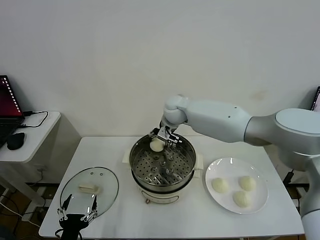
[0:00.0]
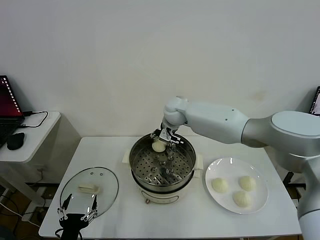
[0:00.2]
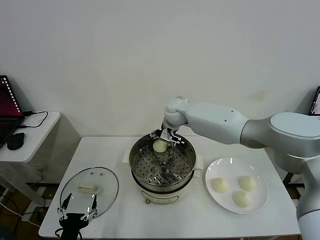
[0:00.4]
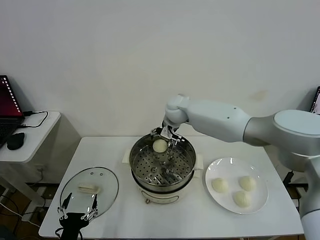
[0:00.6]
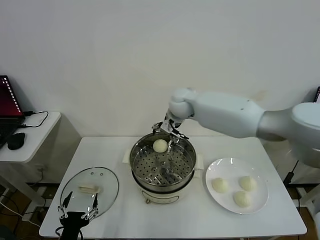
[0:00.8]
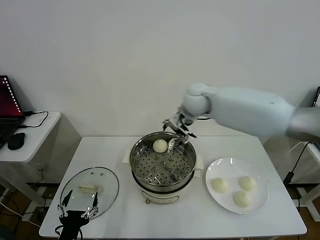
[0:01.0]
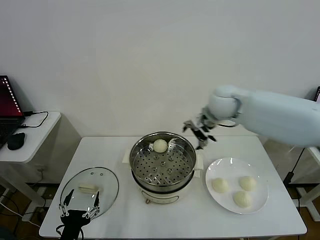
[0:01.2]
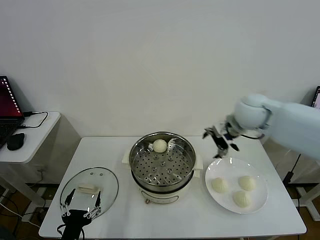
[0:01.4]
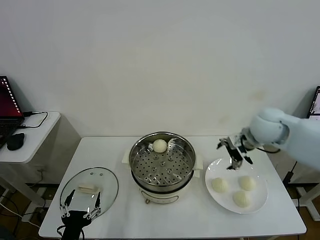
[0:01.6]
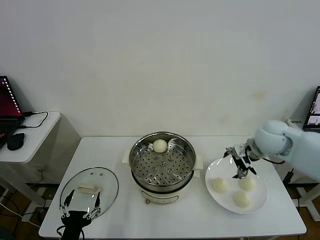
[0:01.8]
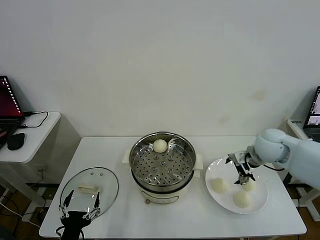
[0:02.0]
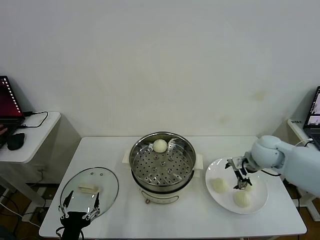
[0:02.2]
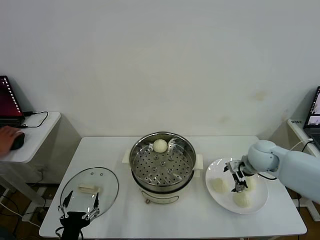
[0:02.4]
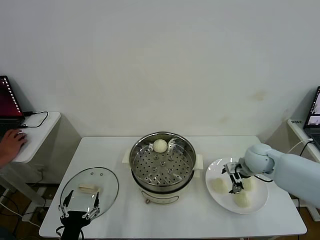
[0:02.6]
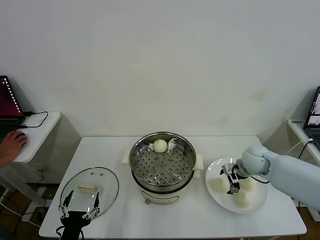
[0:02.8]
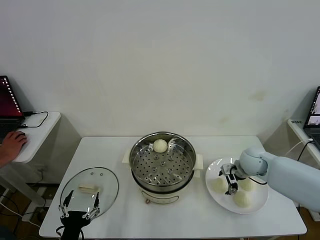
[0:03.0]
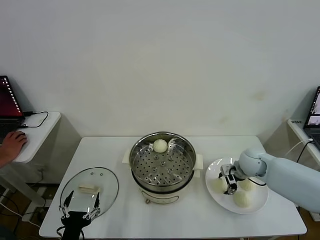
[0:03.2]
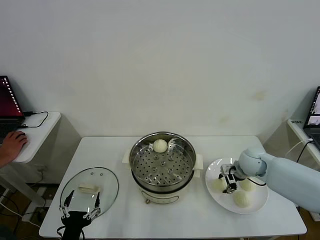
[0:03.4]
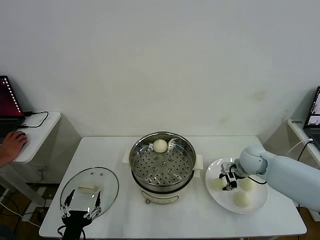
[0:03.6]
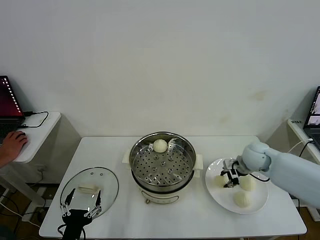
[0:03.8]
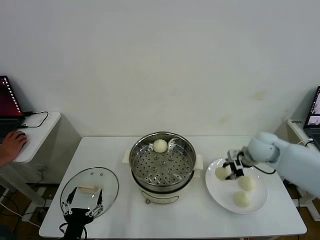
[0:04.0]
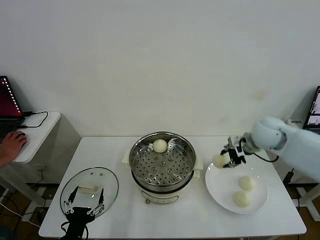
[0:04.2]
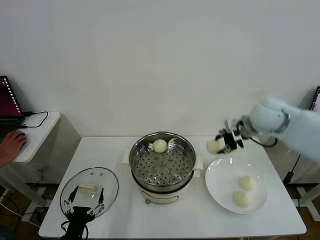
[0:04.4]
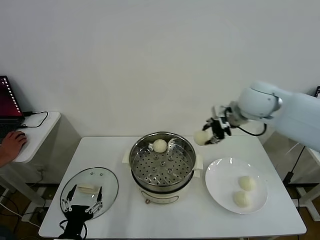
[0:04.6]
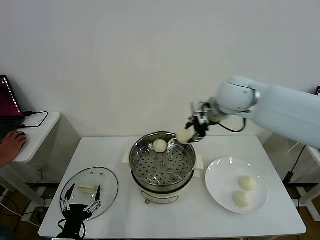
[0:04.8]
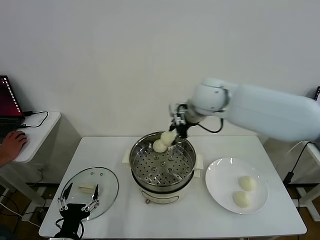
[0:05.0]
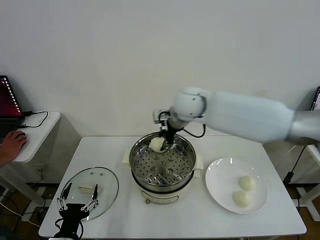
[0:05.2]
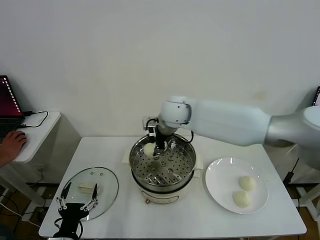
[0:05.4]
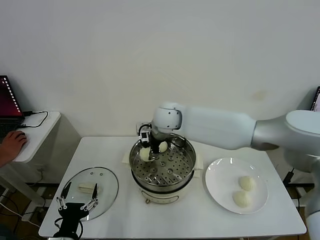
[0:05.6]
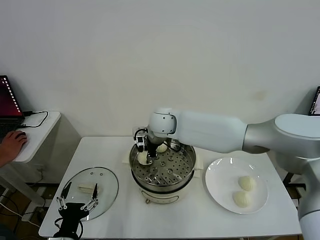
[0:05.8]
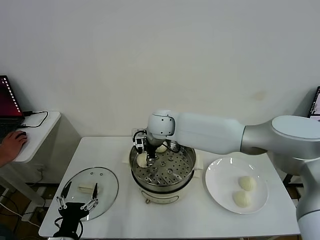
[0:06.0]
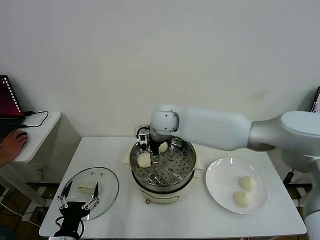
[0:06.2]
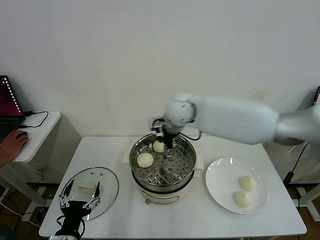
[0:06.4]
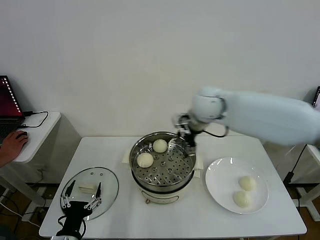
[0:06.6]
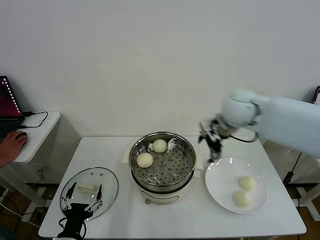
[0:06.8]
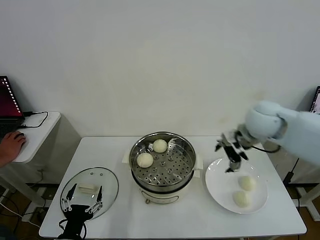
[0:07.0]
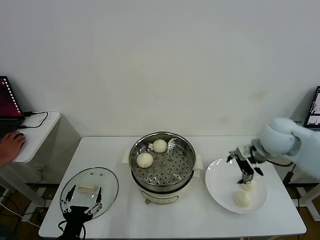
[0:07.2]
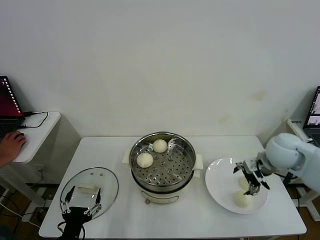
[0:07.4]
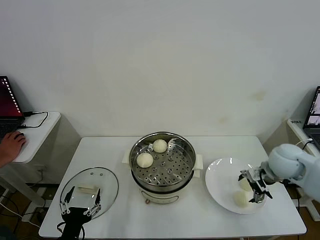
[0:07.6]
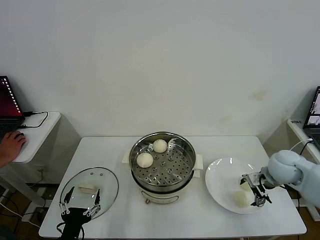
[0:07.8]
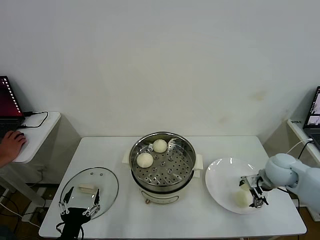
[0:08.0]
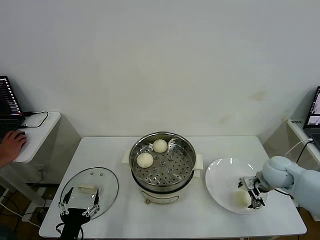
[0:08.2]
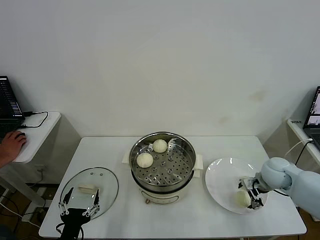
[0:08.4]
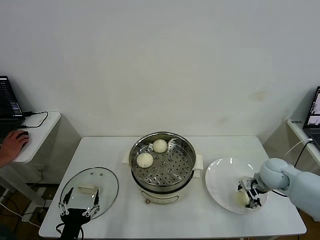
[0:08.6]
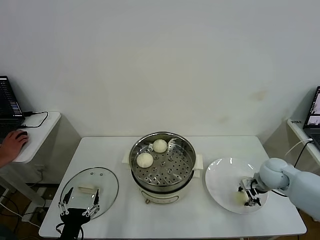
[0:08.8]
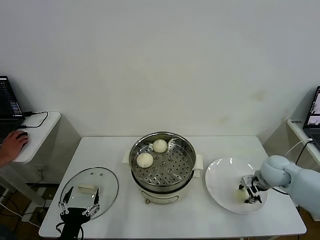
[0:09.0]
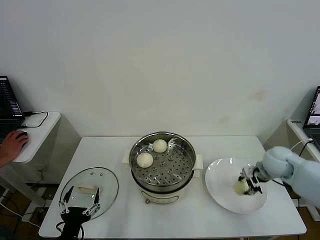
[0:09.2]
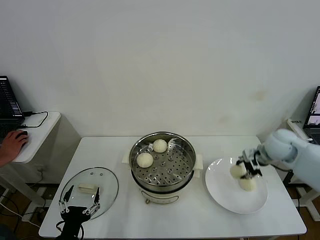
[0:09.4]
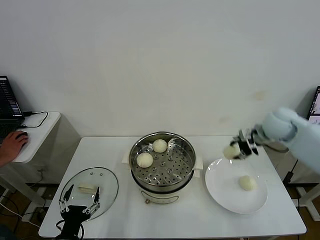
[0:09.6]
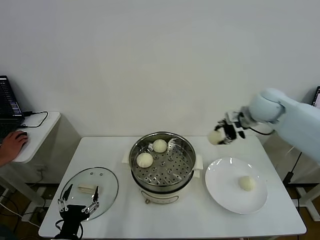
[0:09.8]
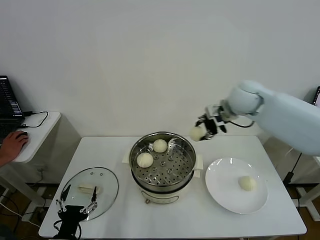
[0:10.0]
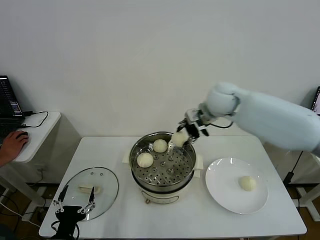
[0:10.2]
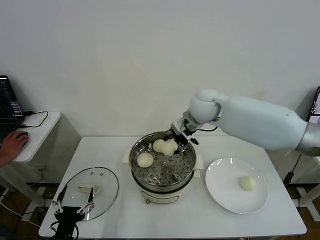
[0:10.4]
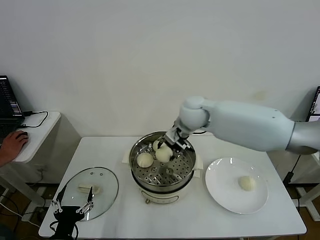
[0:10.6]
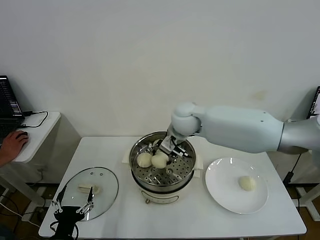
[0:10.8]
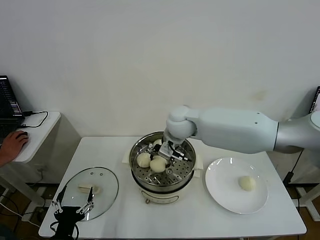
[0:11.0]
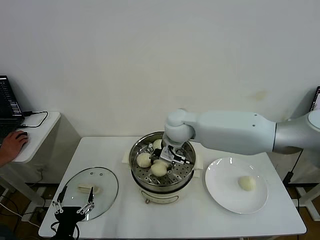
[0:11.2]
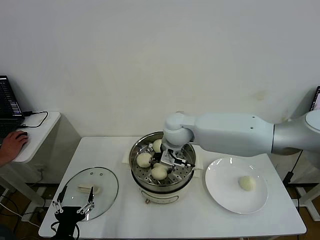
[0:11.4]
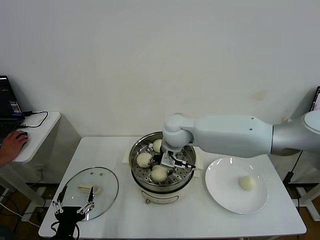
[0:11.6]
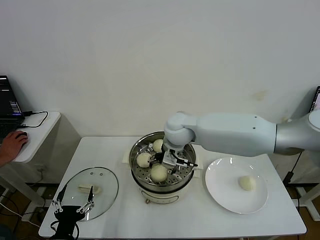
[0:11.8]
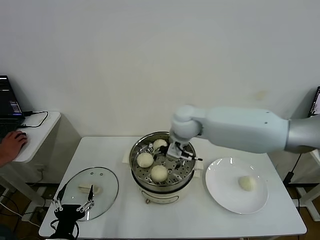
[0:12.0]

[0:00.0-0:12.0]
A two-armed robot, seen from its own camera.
Task of the whole recording: take steamed baozi put them in steamer then cover it.
Step, 0.8 to 3.4 s: Grasp the baozi in the plate with right gripper.
Step, 3.6 to 6.4 s: Place the baozi on the steamer with right gripper.
Step, 6.6 to 8.8 s: Grasp the baozi in the plate with right gripper.
Step, 9.0 to 11.8 s: Place the baozi on the steamer with right gripper.
0.0 to 1.6 s: The right gripper is displaced to the right and backward by roughly 30 cm, and opens up.
1.6 to 3.0 s: The right gripper goes about 15 cm downward.
3.0 to 4.4 s: The right gripper goes about 20 cm upward, and closes.
4.4 to 6.0 s: The right gripper is displaced to the left by about 30 cm, and opens.
6.0 to 7.6 s: The right gripper goes about 40 cm to the right.
7.6 to 9.0 s: The right gripper is displaced downward by roughly 5 cm, and closes up.
9.0 to 10.4 s: The right gripper moves to the left, upward and forward, roughly 35 cm.
10.4 to 12.0 s: The right gripper opens.

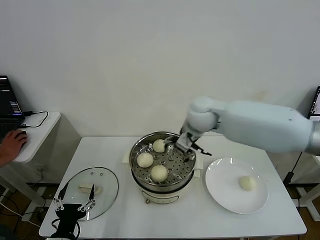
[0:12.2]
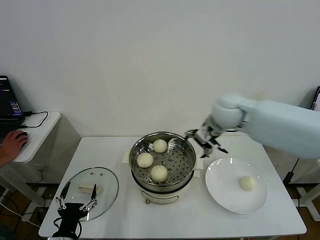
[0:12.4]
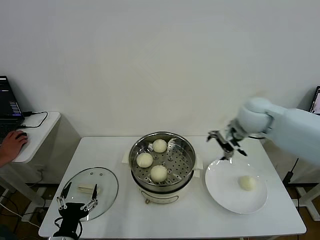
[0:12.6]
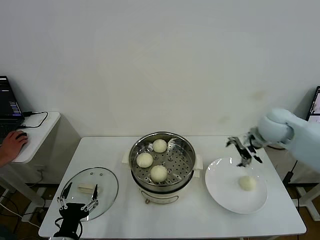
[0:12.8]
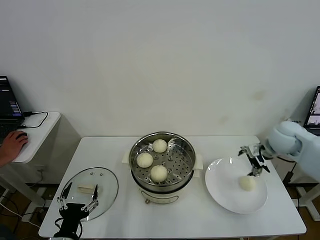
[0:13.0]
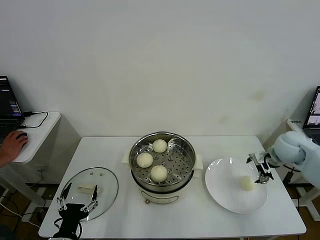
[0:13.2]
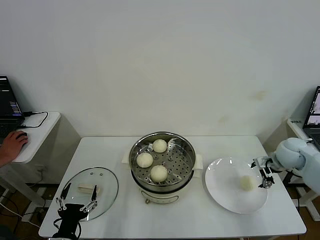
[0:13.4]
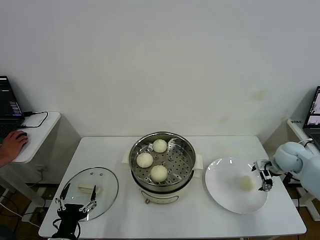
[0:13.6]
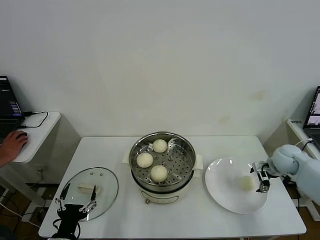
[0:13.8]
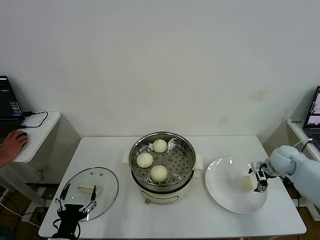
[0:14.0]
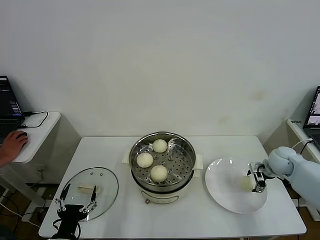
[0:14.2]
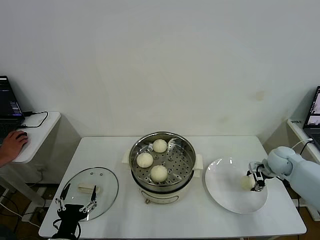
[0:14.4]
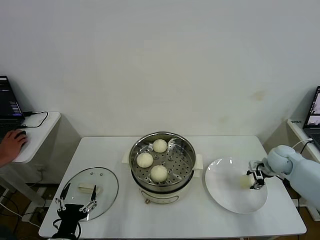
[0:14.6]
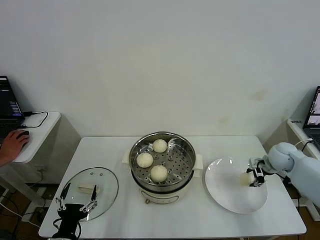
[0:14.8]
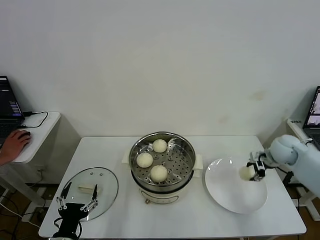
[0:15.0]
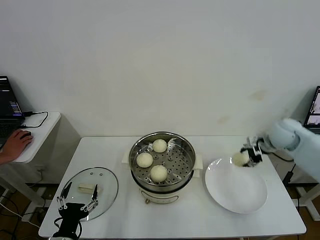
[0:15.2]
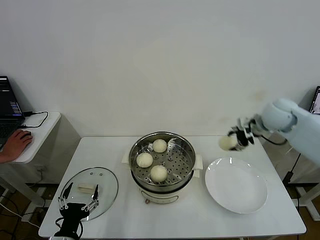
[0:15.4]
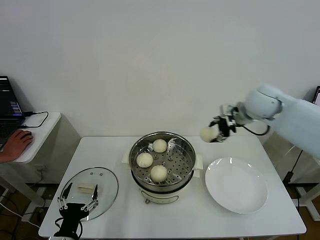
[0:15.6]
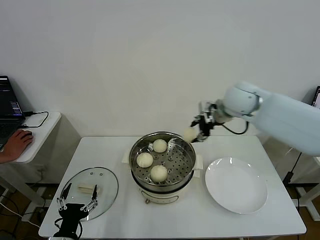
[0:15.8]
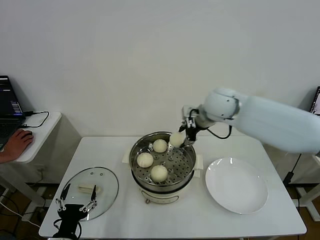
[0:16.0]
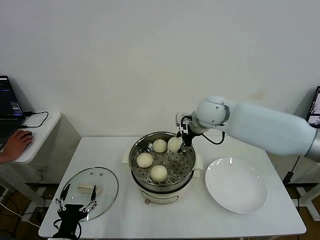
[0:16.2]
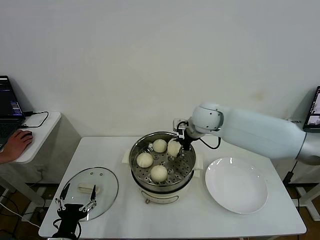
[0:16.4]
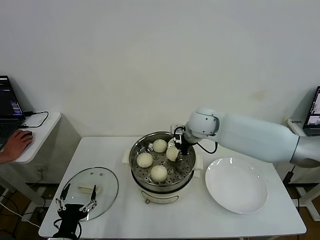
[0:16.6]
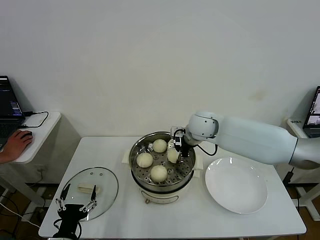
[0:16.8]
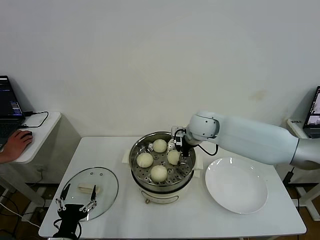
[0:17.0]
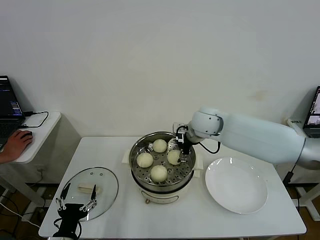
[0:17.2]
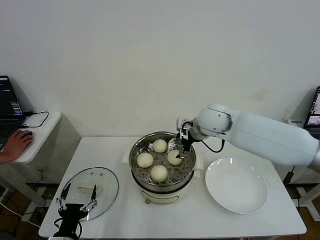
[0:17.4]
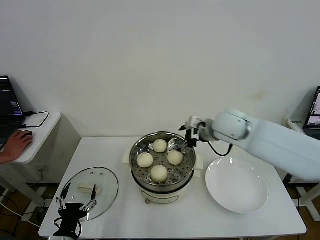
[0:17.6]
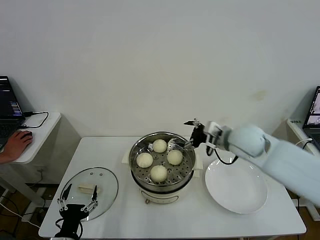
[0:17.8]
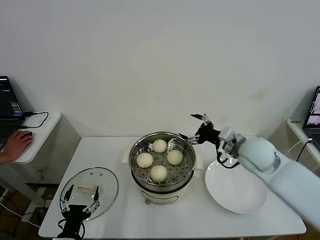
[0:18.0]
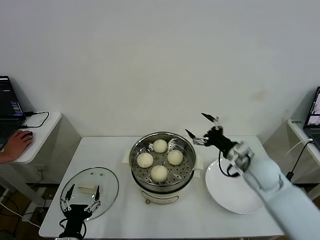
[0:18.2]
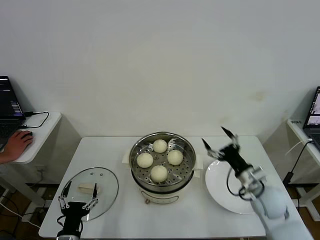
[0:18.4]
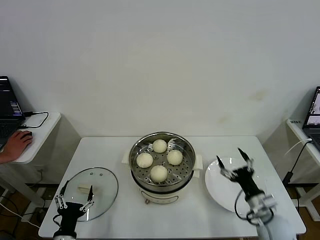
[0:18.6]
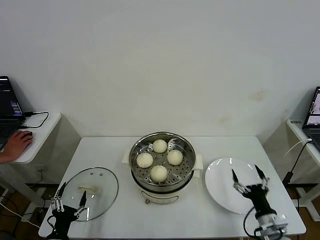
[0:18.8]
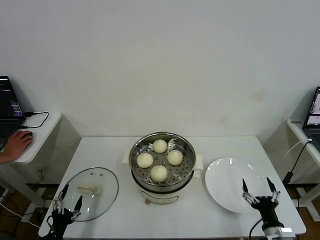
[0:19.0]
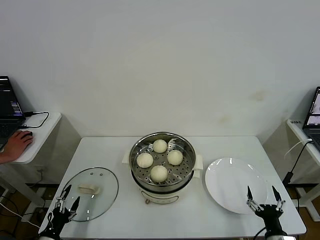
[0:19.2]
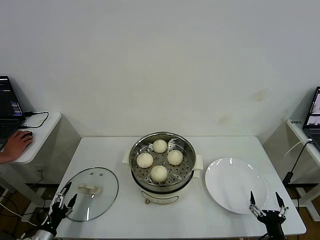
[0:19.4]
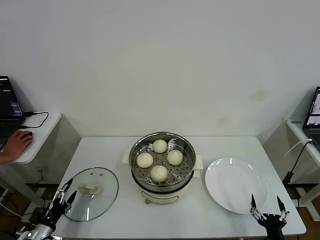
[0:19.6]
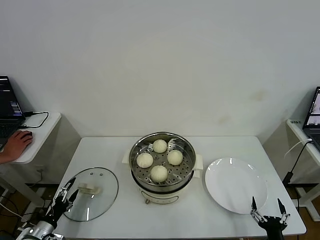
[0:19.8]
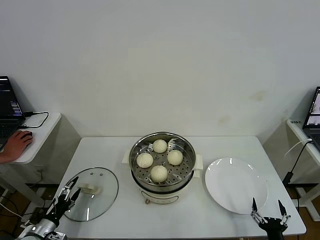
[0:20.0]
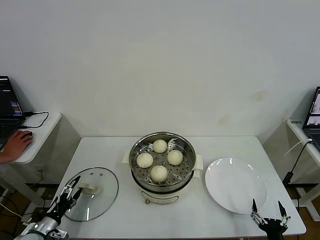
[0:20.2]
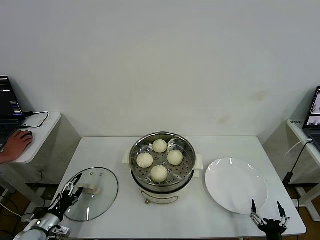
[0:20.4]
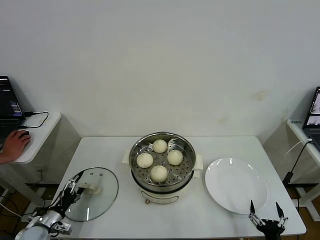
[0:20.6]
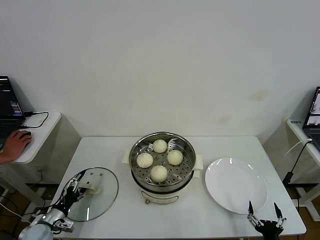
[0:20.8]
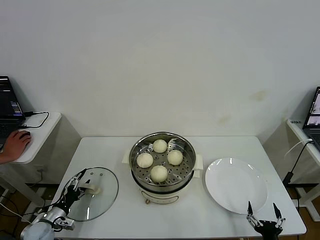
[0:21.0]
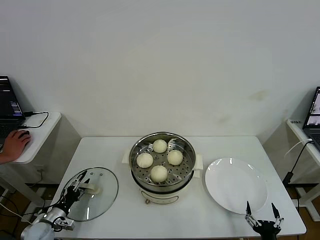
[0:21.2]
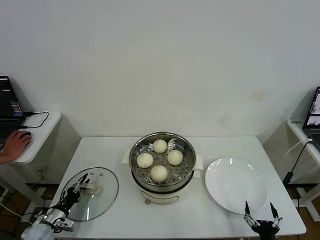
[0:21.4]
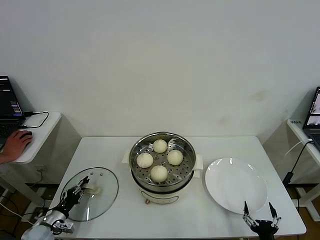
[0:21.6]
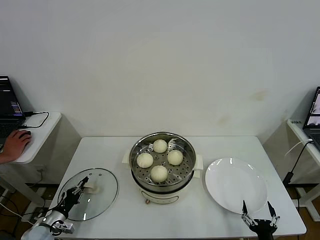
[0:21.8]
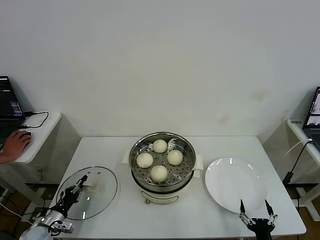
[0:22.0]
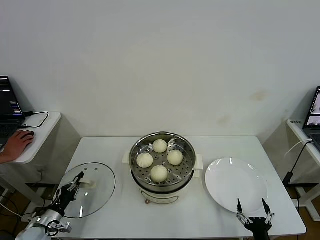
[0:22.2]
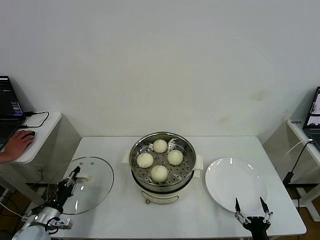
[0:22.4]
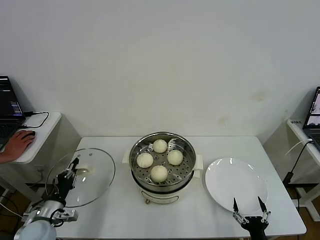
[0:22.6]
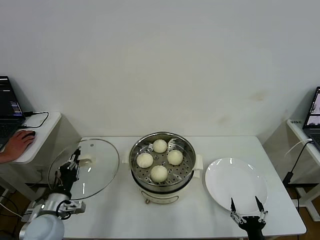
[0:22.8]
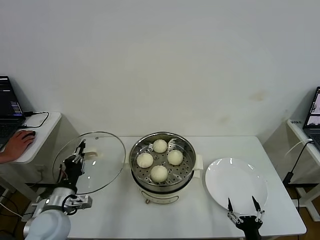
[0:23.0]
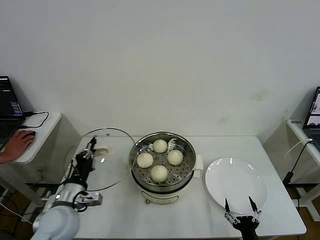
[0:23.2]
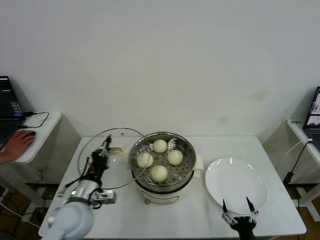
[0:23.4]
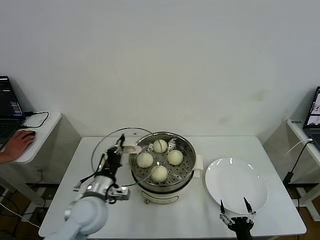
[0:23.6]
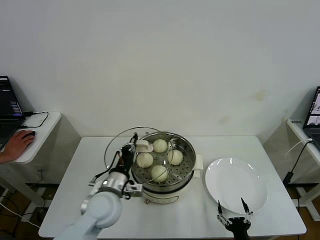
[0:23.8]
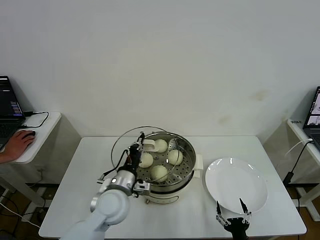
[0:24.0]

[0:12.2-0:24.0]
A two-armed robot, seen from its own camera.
Task of the whole recording: take steamed baozi put them in steamer then cover it.
Step, 12.2 to 14.6 s: Grasp the baozi in the plate with right gripper.
Step, 14.8 to 17.0 s: Place the baozi on the steamer with right gripper.
Step, 17.2 to 22.0 s: Grasp the pot lid with left gripper.
12.2 to 13.6 s: The right gripper shifts some 35 cm to the right and downward.
13.6 to 15.2 s: The right gripper goes about 10 cm upward, and closes its fingers.
15.2 to 16.6 s: The right gripper moves to the left, roughly 25 cm.
16.6 to 18.2 s: The right gripper travels to the right, backward and downward by some 25 cm, and opens.
18.2 to 19.6 s: The left gripper goes roughly 20 cm to the left and downward. The right gripper goes roughly 30 cm backward and downward.
19.6 to 21.0 s: The left gripper travels forward by roughly 5 cm.
21.0 to 22.6 s: The left gripper shifts about 10 cm upward and to the right, and closes up.
22.6 to 24.0 s: The left gripper goes some 25 cm to the right.
